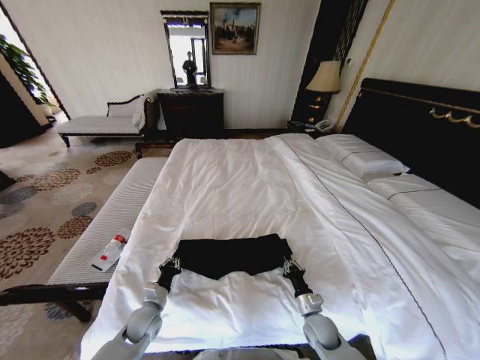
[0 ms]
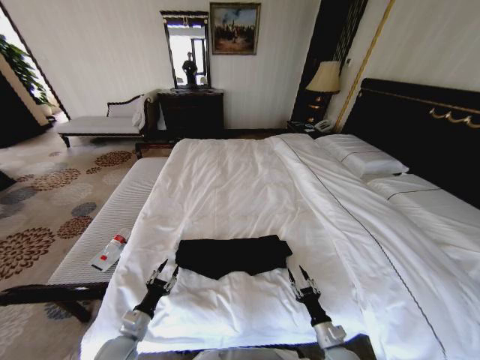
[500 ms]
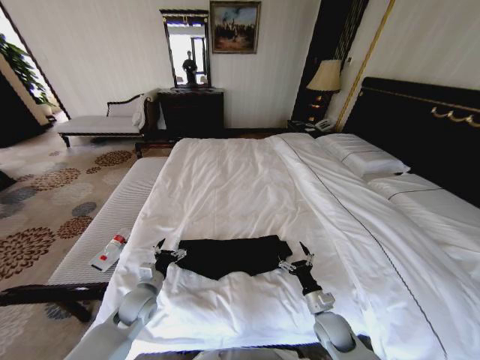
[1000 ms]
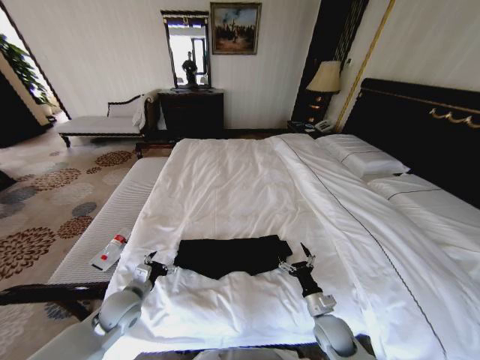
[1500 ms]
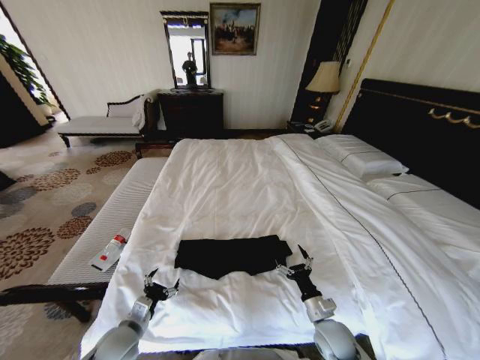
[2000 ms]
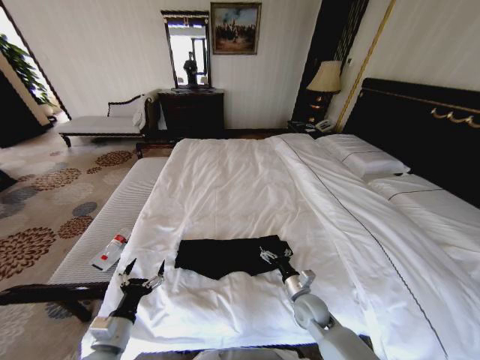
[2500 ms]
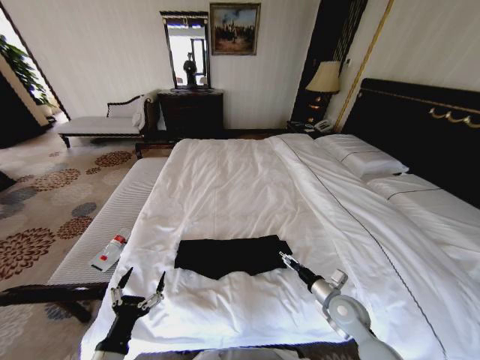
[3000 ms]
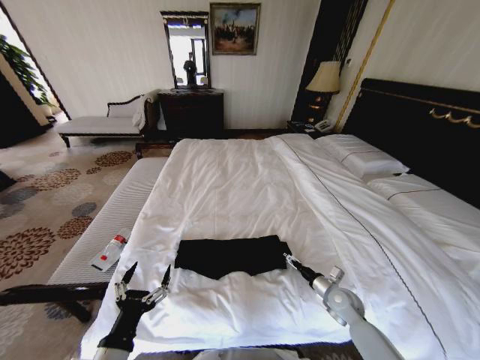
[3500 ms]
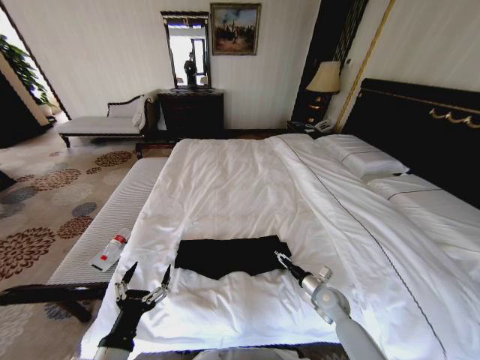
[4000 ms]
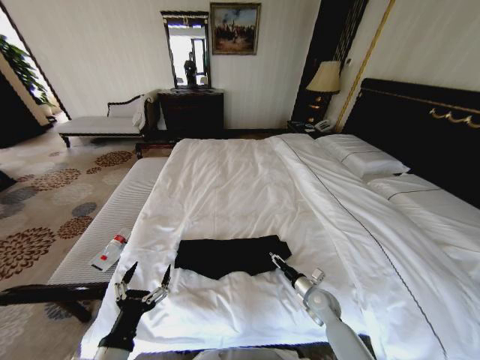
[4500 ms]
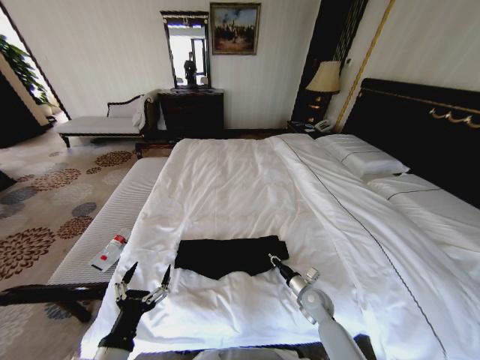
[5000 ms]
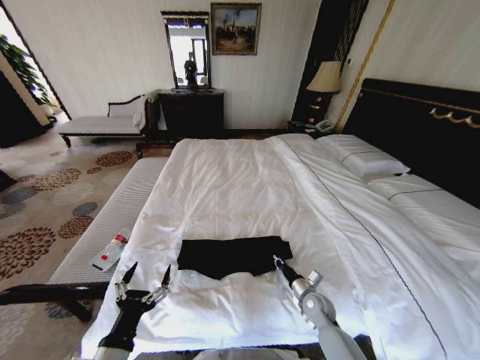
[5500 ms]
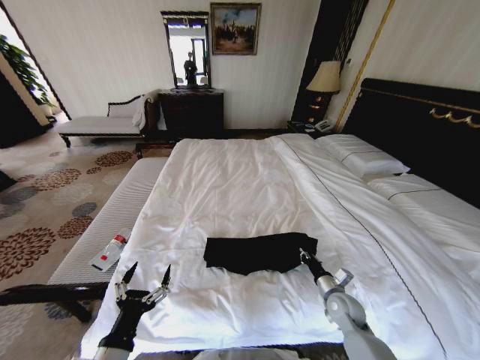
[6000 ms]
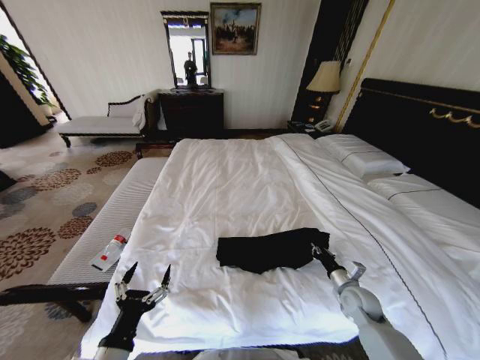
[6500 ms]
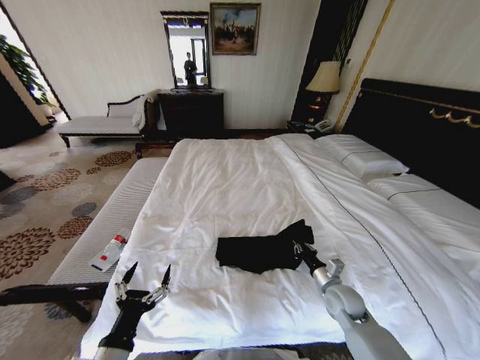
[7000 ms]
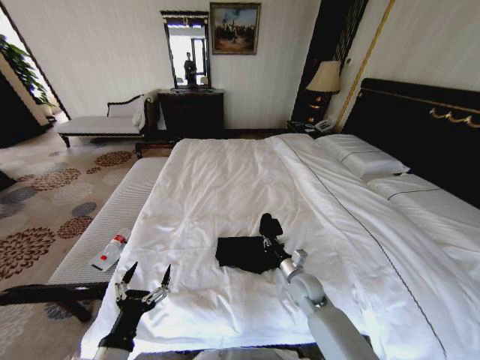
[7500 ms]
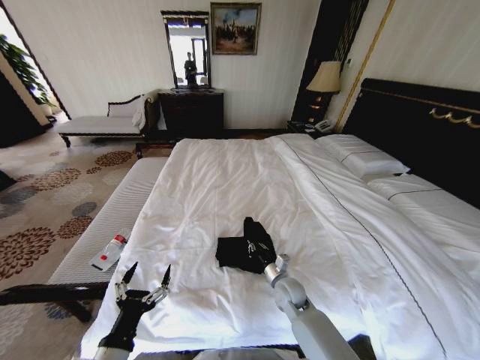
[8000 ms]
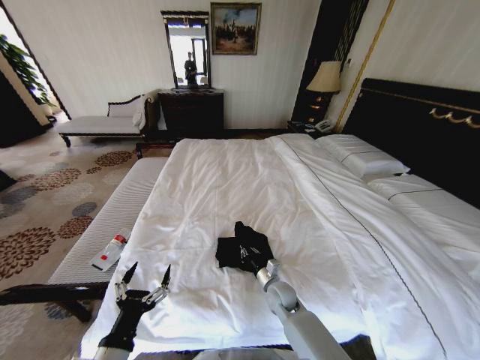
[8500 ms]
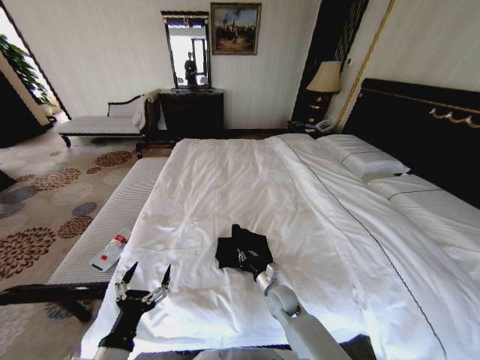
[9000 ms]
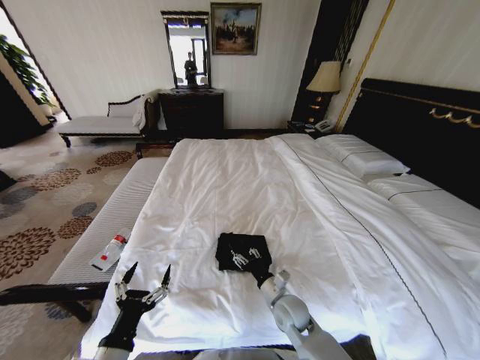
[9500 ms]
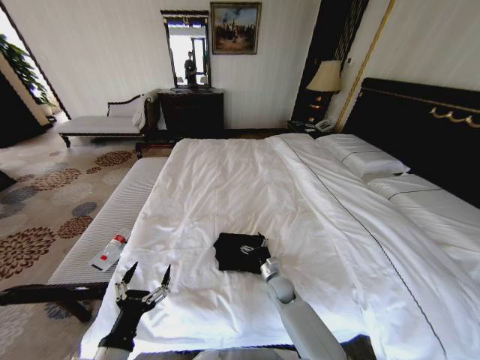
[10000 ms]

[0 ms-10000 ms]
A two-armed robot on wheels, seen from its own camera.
Task of the whole recording: Fold the clothes on the bed.
0 ms to 2000 ms: The right gripper shifts approximately 5 cm upward, and opens. Meanwhile the left gripper travels upward and backward by about 10 cm, and opens up.
2000 ms to 4000 ms: The right gripper goes some 10 cm forward and to the right. The left gripper is displaced backward and upward by roughly 15 cm.
4000 ms to 6000 ms: The right gripper closes.
6000 ms to 8000 ms: The right gripper moves to the left, approximately 15 cm.
8000 ms to 10000 ms: The right gripper shifts approximately 5 cm downward, reaches about 5 cm backward, then returns, and opens.

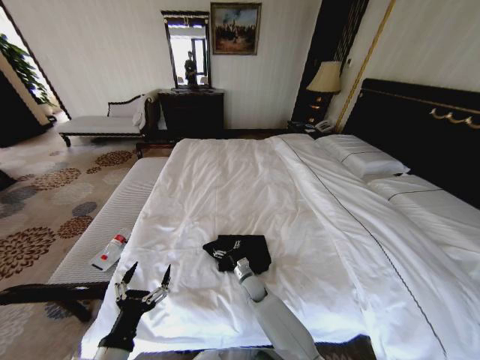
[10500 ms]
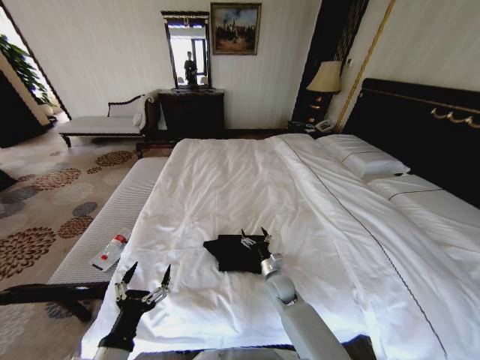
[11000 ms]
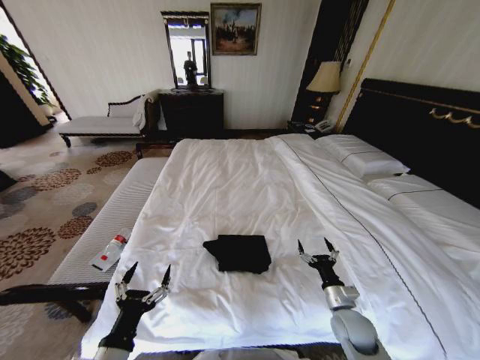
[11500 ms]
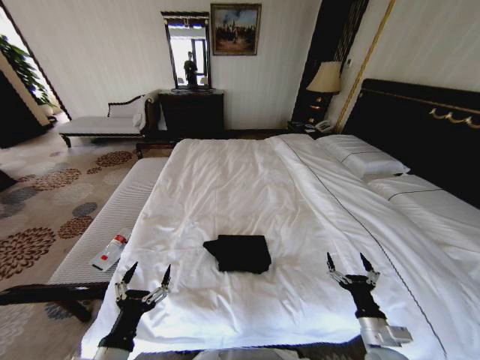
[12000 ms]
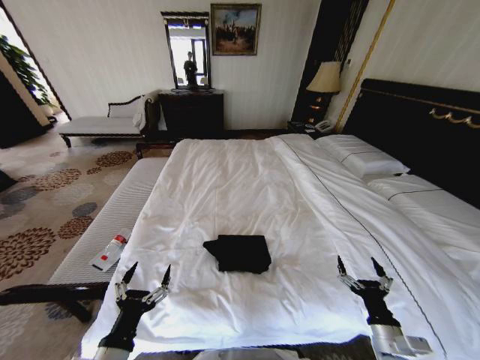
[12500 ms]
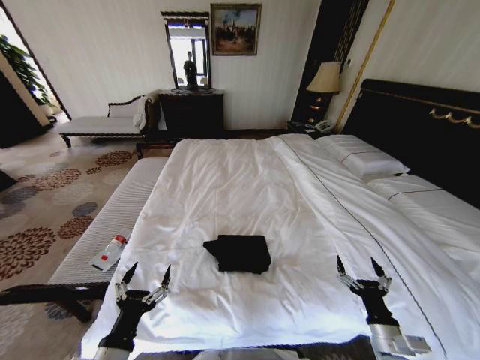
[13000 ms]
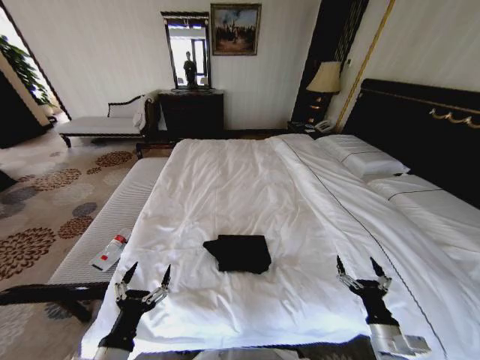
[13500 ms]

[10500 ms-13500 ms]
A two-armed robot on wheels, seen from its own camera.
Task of the whole recording: Fold the clothes on the bed.
10500 ms to 12000 ms: The right gripper moves to the right, backward and upward, approximately 40 cm.
12000 ms to 13500 ms: The grippers make only small movements.

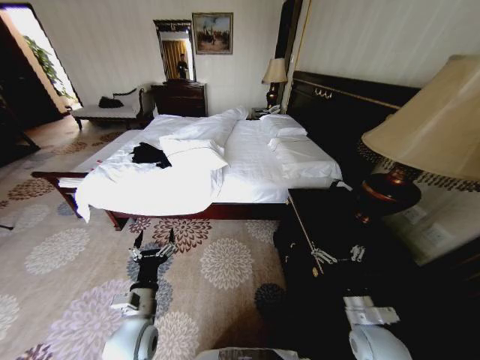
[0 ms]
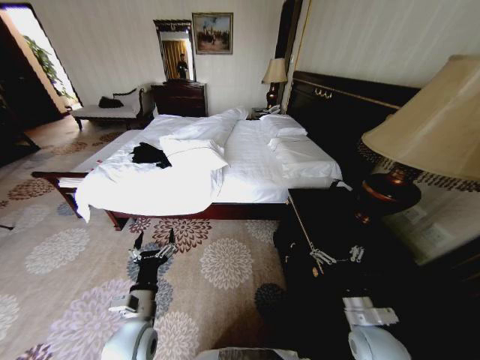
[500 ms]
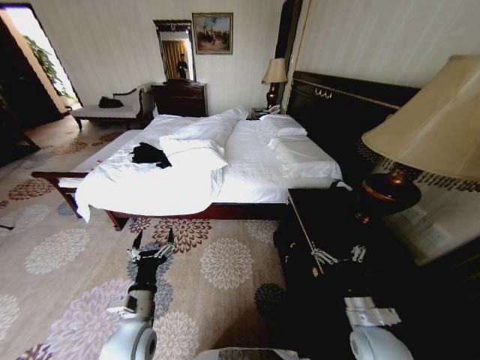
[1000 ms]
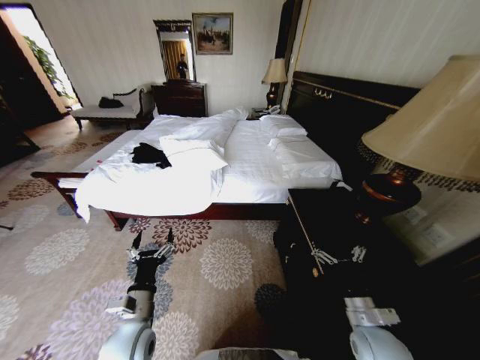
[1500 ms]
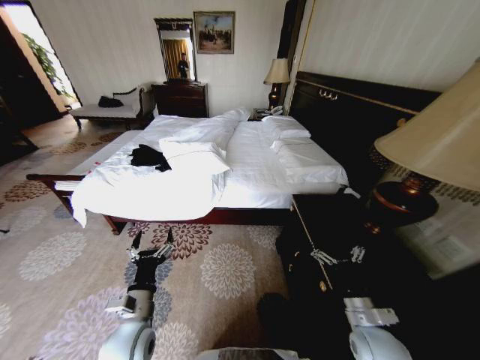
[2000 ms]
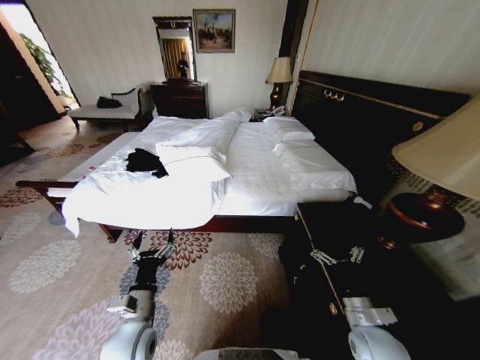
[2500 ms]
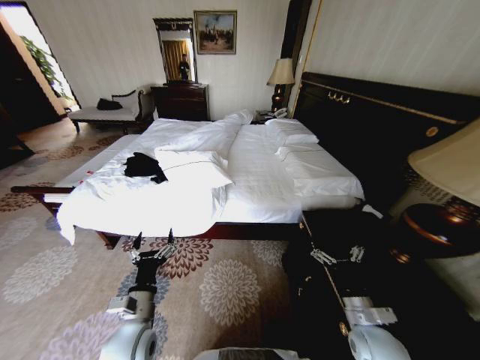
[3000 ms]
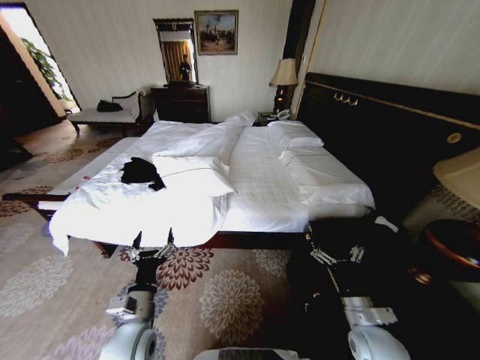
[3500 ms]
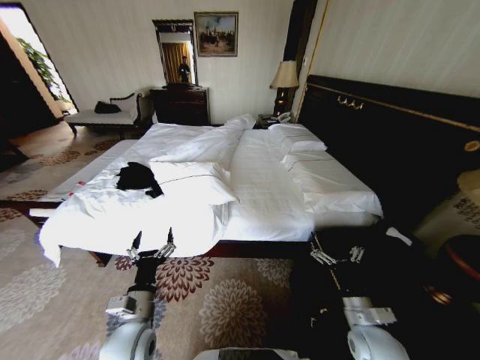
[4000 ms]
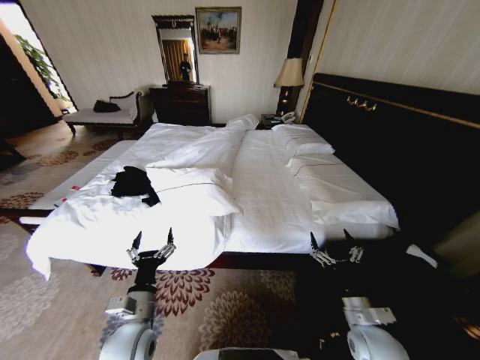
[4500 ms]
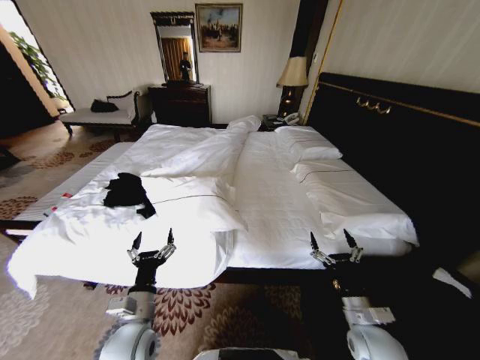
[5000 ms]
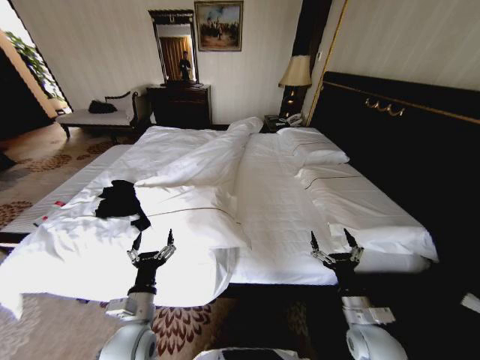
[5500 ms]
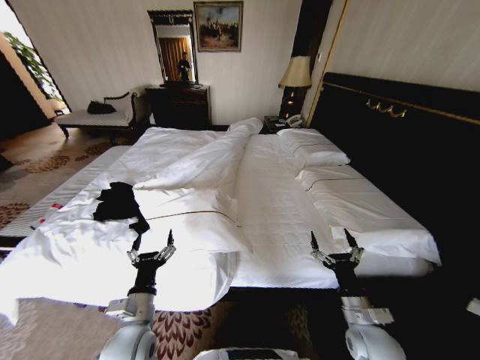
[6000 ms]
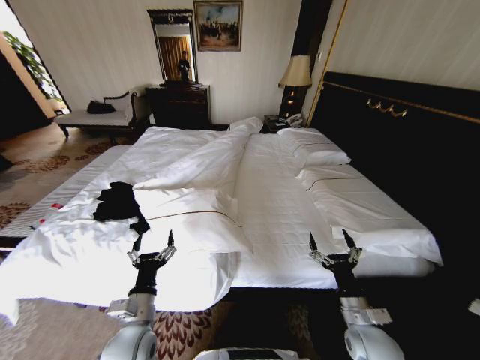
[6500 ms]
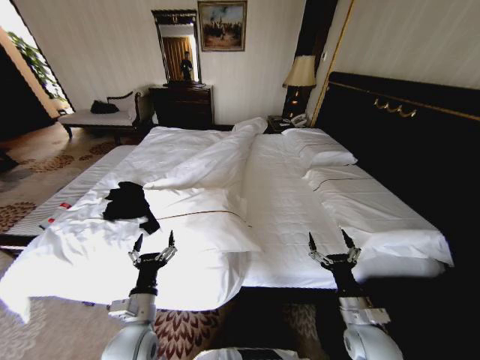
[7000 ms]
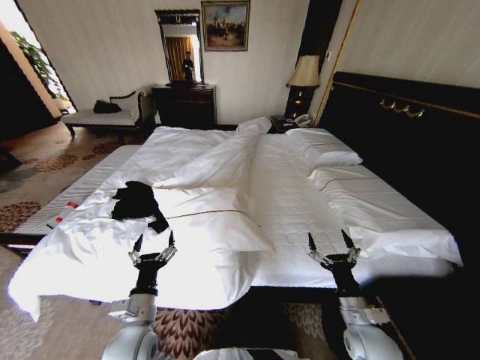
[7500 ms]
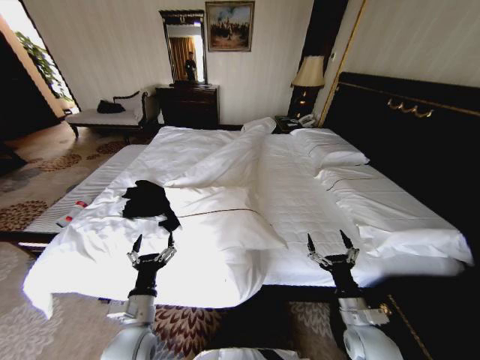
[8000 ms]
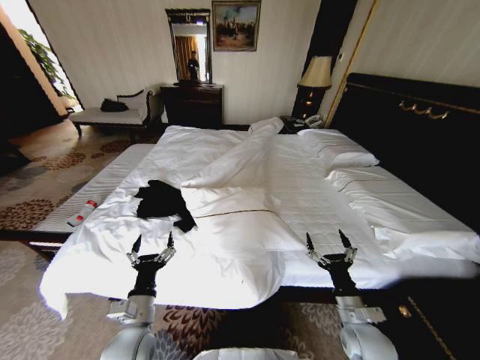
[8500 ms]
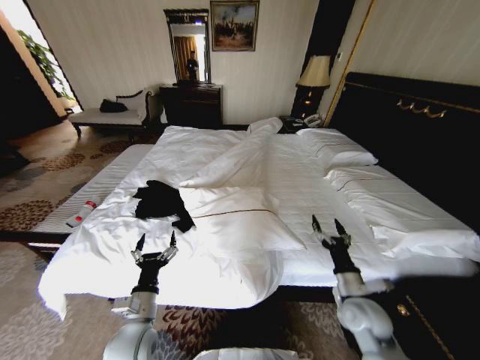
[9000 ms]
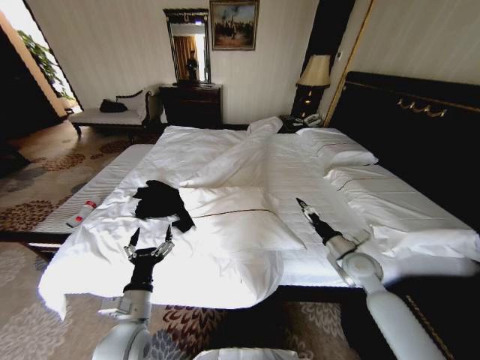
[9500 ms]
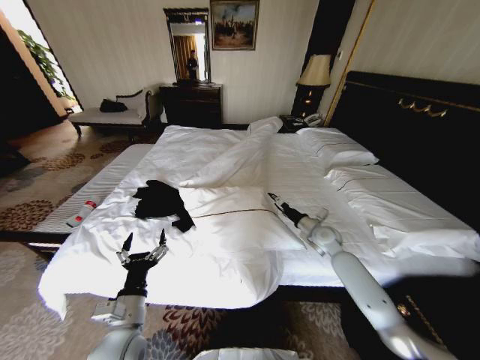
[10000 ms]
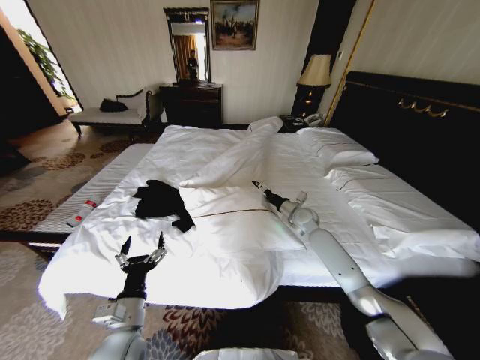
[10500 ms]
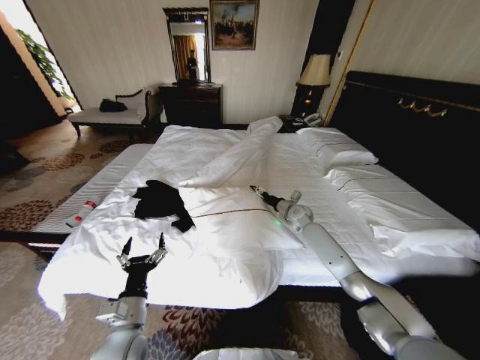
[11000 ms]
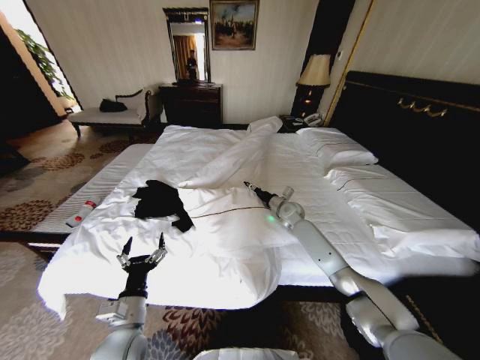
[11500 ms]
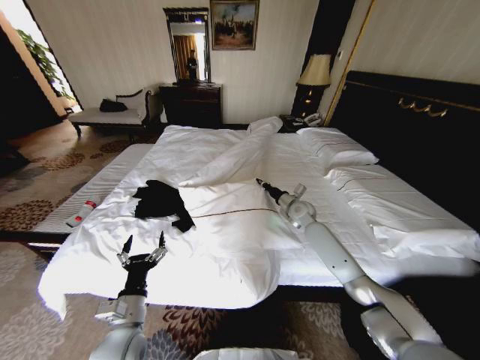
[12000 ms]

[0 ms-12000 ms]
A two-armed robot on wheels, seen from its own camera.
Task of the whole recording: Fold the clothes on the bed.
8000 ms to 10000 ms: The right gripper moves forward, some 30 cm.
10000 ms to 12000 ms: The right gripper shifts about 10 cm forward and to the left, and closes its fingers.

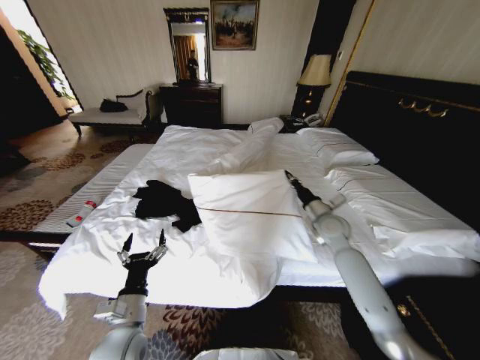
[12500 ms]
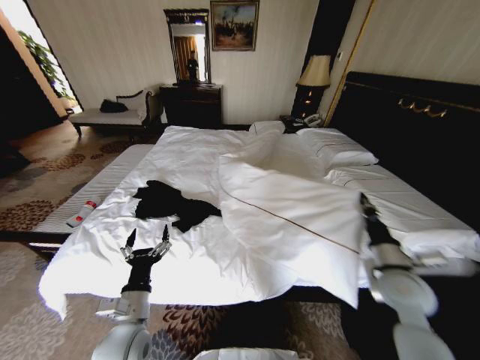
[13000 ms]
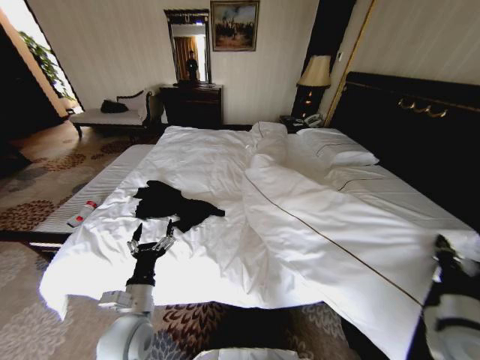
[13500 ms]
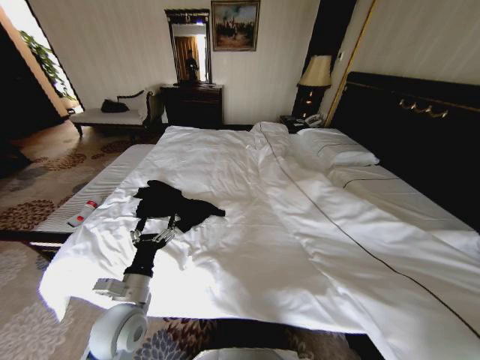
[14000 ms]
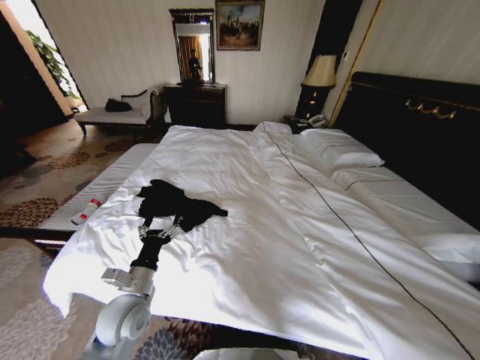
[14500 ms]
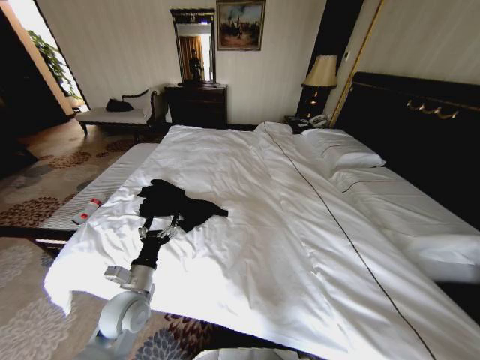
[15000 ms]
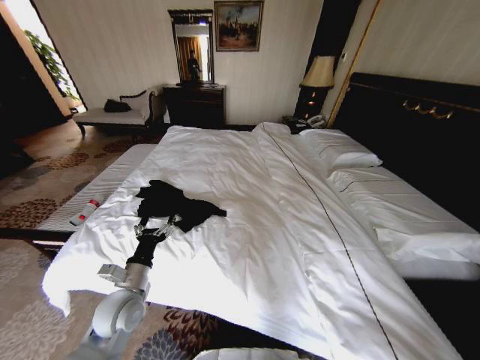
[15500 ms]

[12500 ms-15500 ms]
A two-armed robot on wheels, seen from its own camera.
Task of the whole recording: Fold the clothes on the bed.
12500 ms to 14000 ms: The right gripper goes about 40 cm backward.
14000 ms to 15500 ms: The right gripper shifts approximately 15 cm downward.
